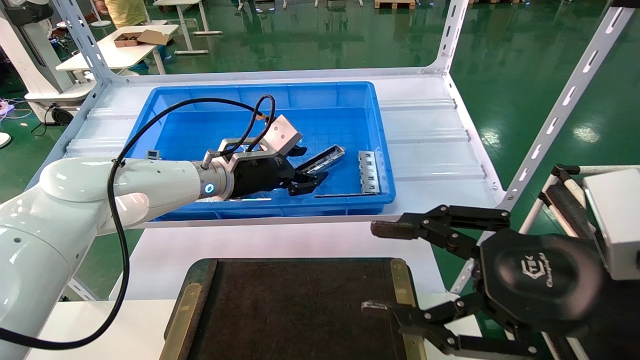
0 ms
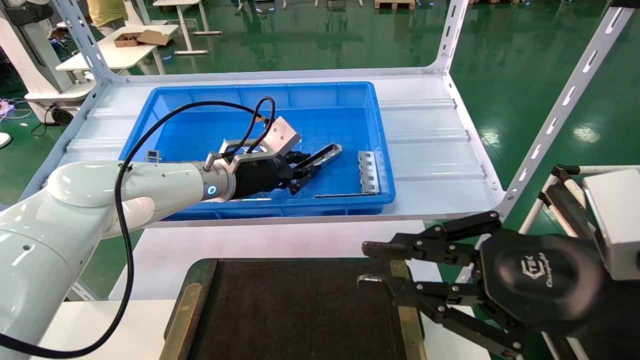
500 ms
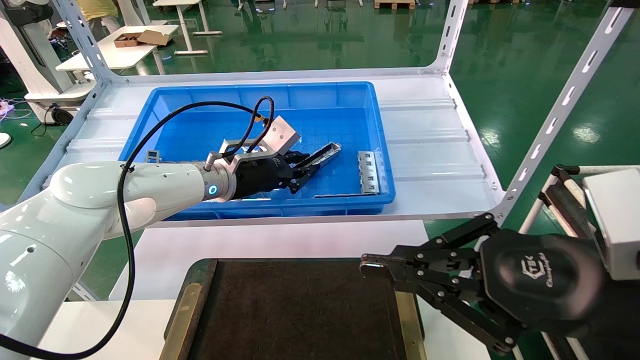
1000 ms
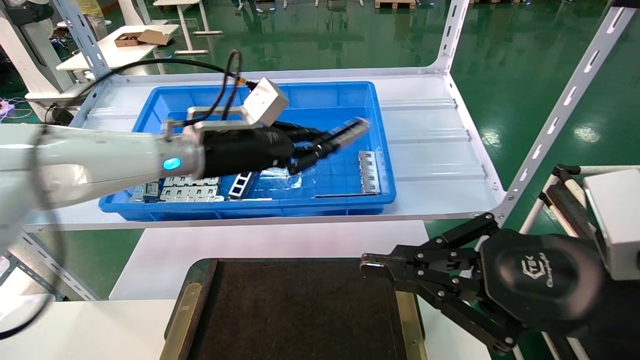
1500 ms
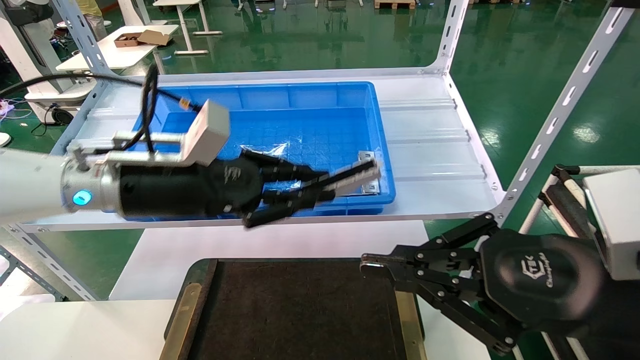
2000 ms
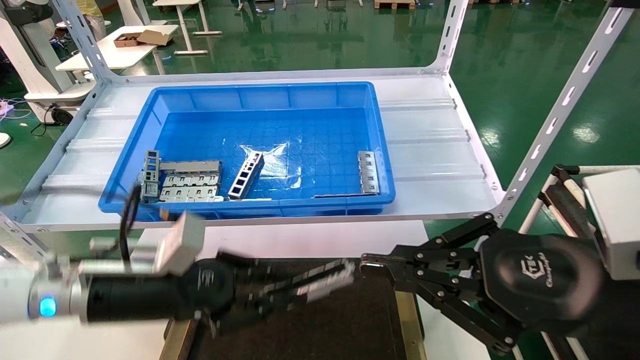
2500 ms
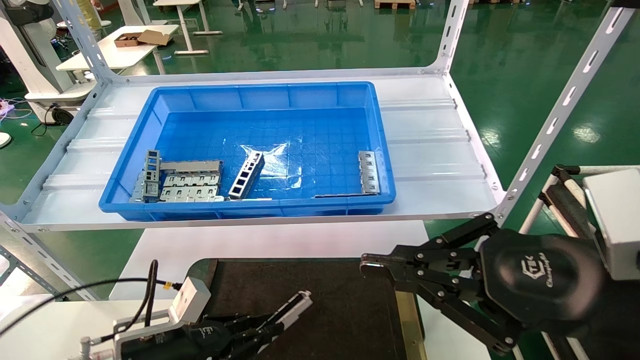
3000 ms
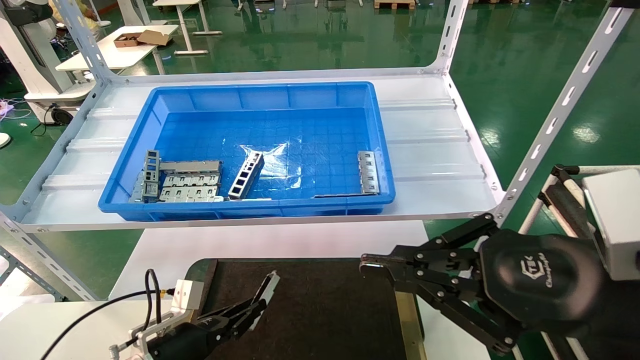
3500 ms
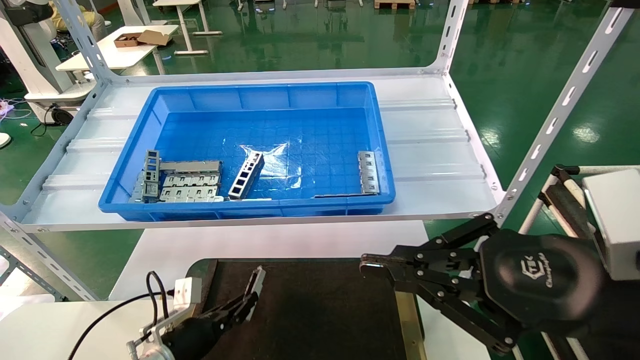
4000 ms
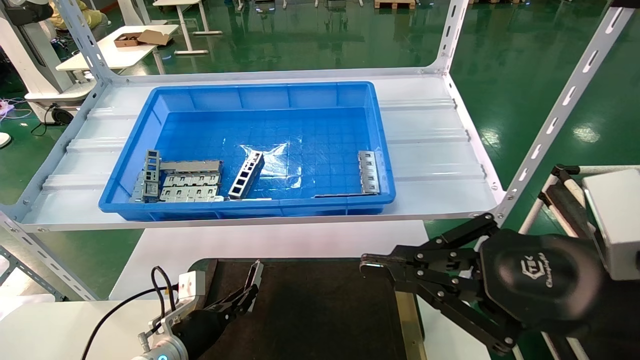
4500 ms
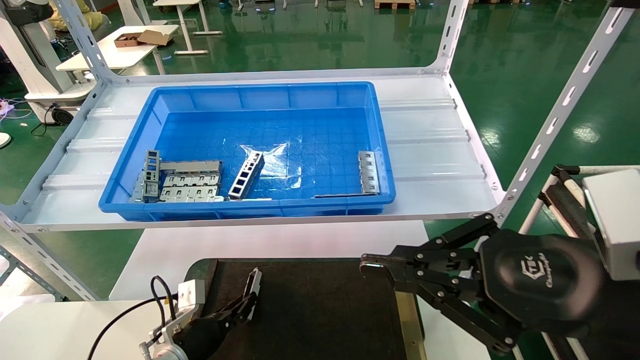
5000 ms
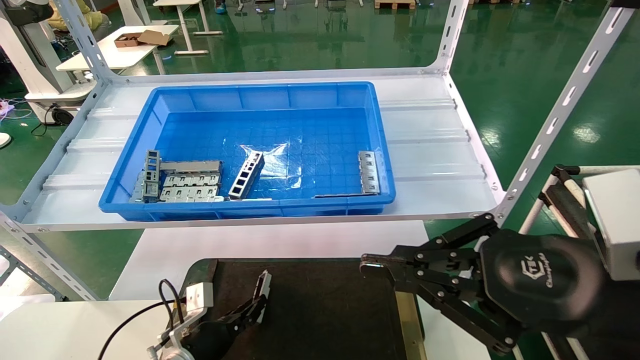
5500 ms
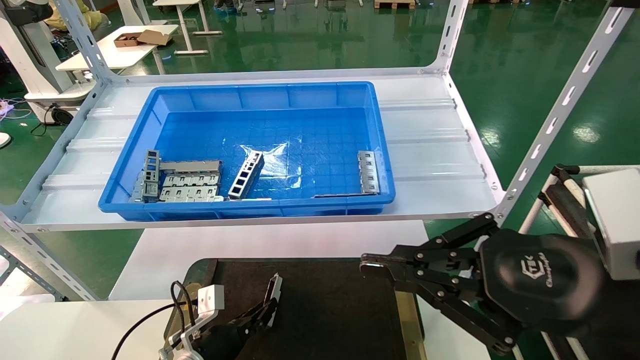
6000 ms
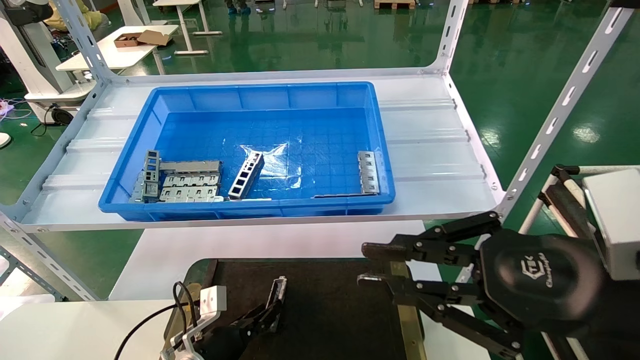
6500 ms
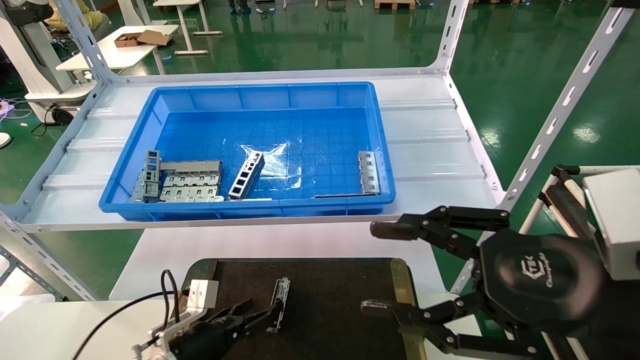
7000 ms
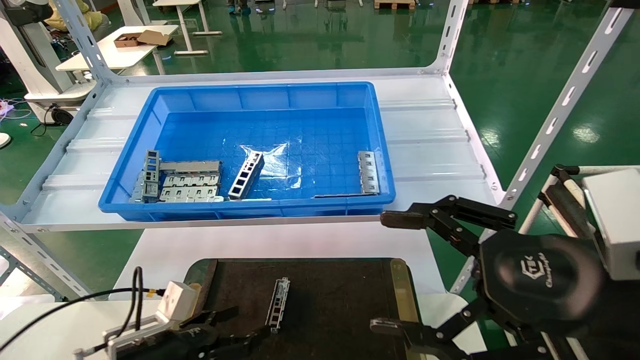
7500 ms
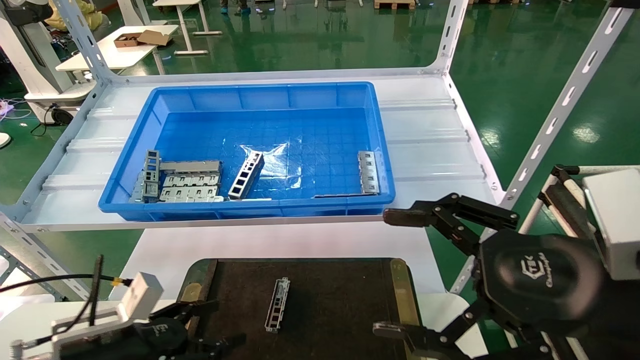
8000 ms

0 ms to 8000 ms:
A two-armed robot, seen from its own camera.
Task of the whole recording: Grasp the part with one hand and place it on the black container.
Step, 2000 ms to 6500 ms: Place the front USB bracket into the box.
0 ms to 2000 ms: The right gripper closes up; the left gripper travels backward and to the left by roughly 15 cm, and closes.
2000 ms to 4000 ms: The left gripper goes approximately 30 cm downward.
4000 ms to 6000 ms: The left gripper changes place by some 5 cm.
6000 ms to 8000 ms: The right gripper opens. Meanwhile the left gripper moves upward, to the left and backward, some 20 cm, and opens up.
